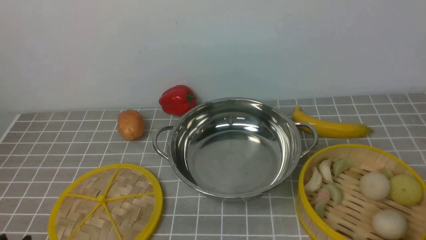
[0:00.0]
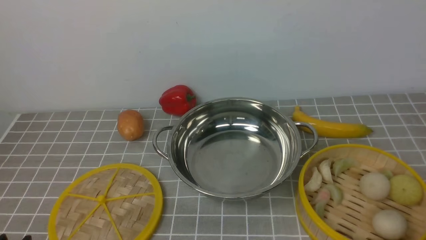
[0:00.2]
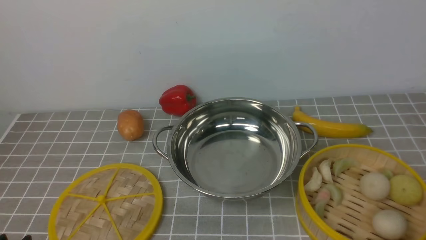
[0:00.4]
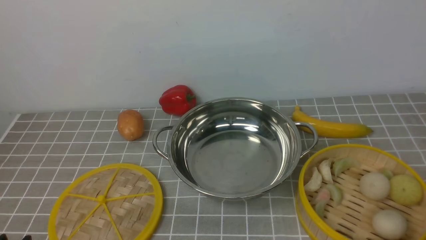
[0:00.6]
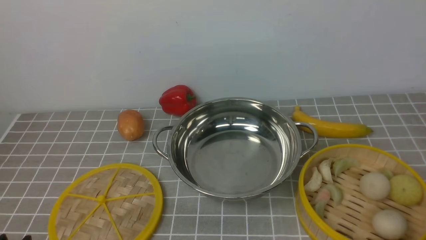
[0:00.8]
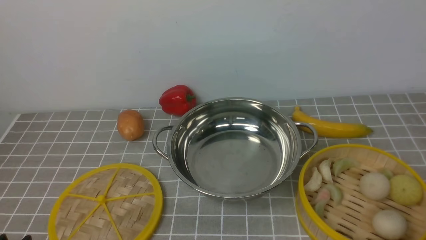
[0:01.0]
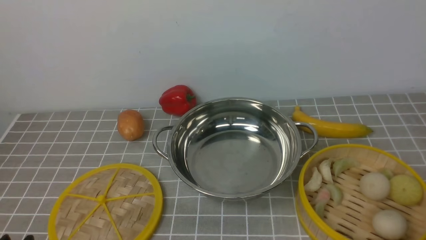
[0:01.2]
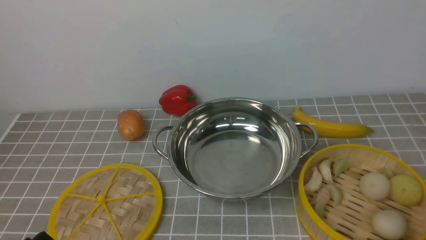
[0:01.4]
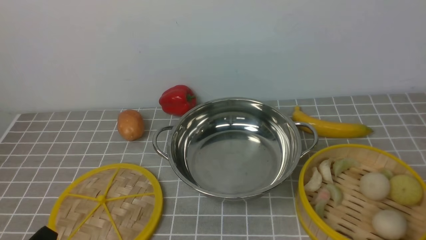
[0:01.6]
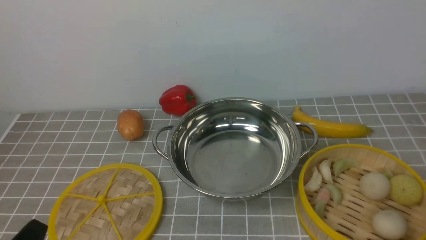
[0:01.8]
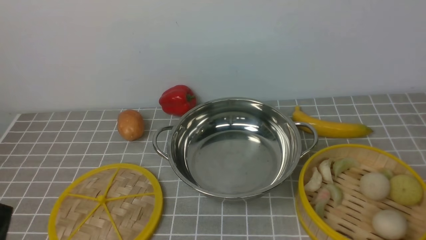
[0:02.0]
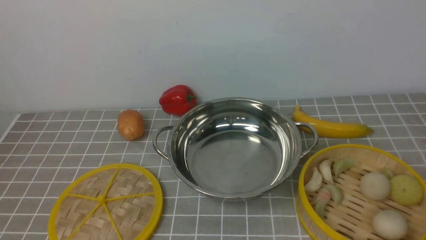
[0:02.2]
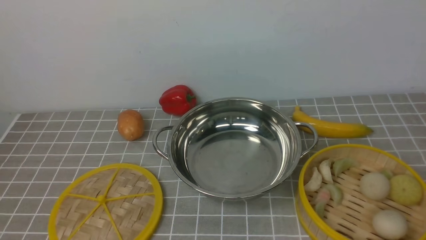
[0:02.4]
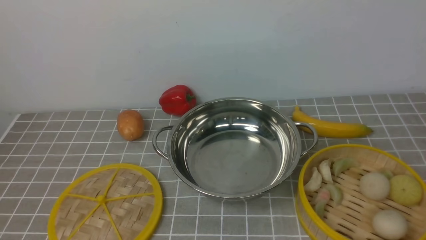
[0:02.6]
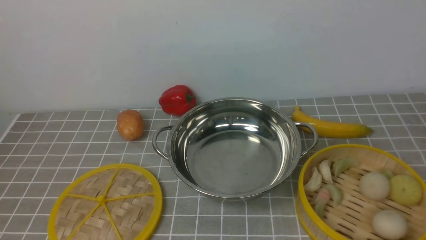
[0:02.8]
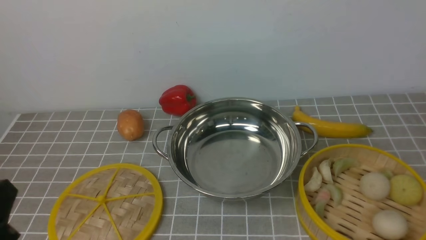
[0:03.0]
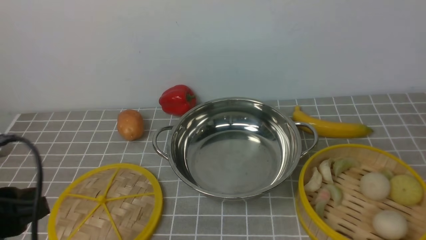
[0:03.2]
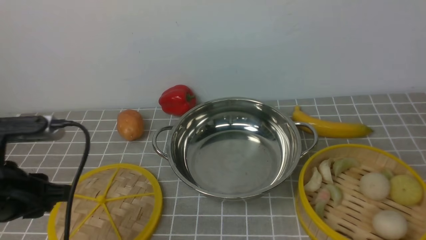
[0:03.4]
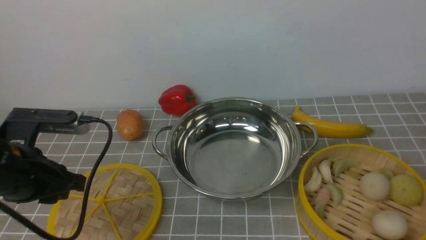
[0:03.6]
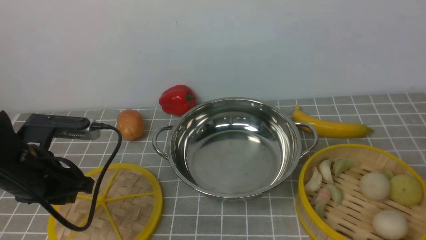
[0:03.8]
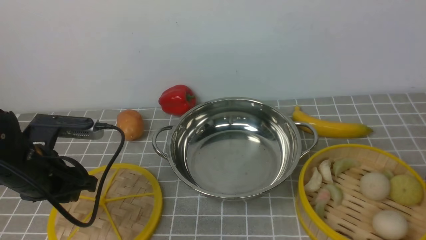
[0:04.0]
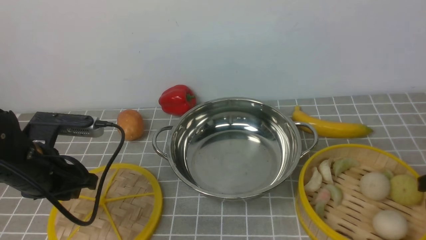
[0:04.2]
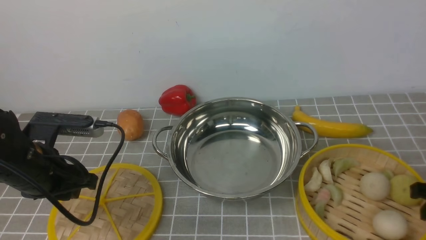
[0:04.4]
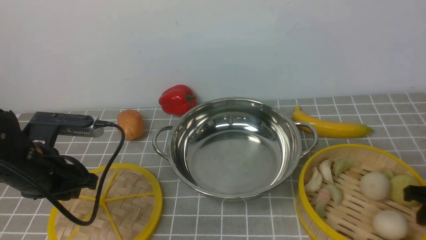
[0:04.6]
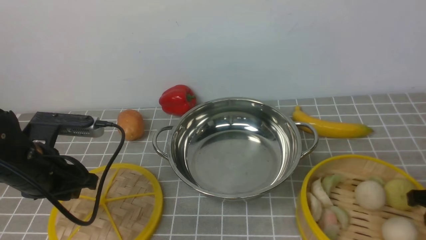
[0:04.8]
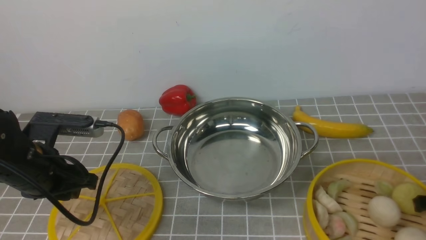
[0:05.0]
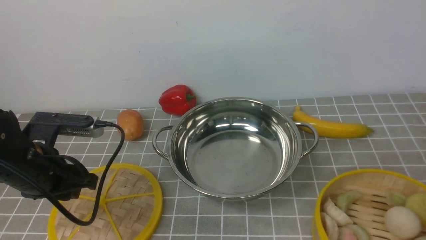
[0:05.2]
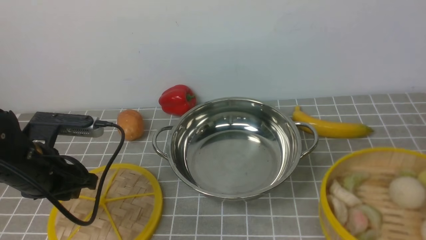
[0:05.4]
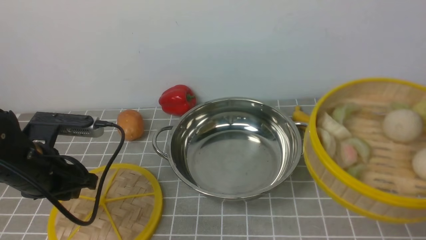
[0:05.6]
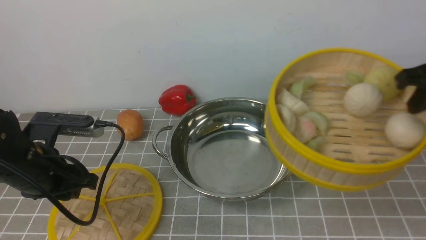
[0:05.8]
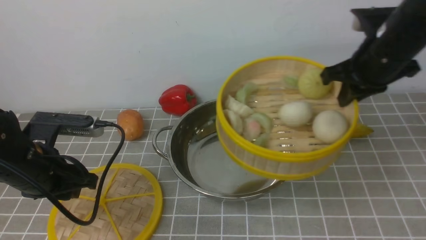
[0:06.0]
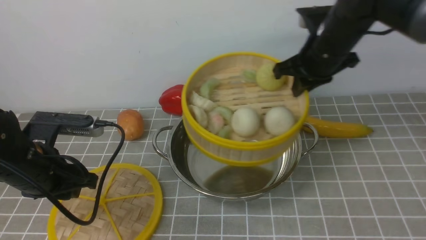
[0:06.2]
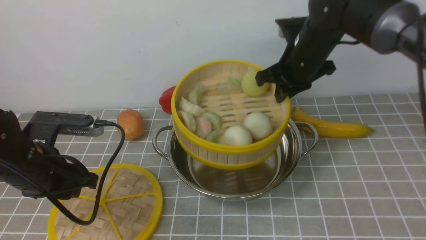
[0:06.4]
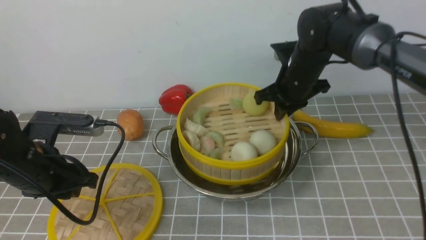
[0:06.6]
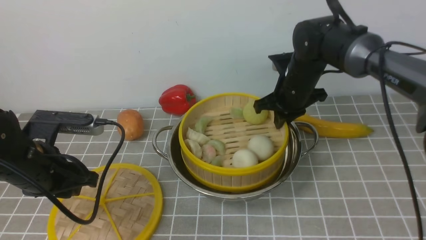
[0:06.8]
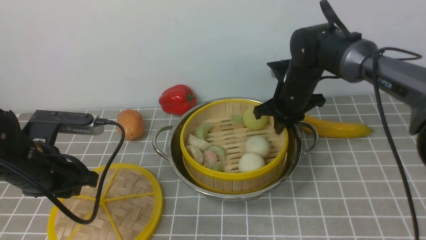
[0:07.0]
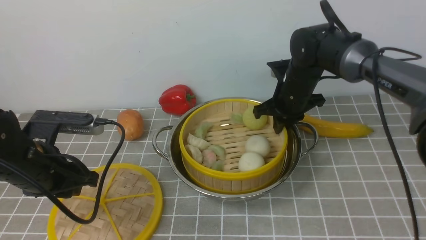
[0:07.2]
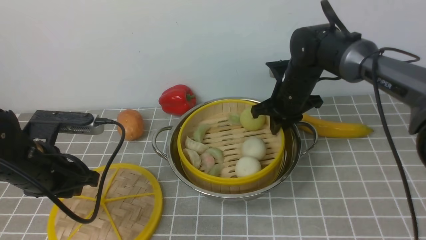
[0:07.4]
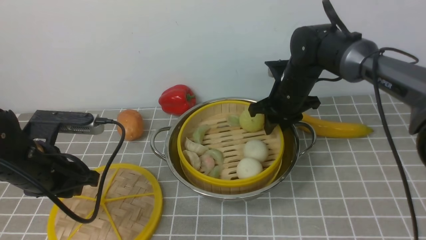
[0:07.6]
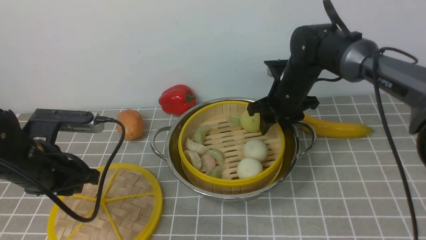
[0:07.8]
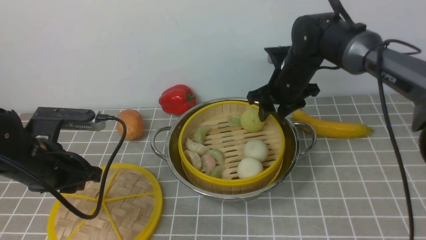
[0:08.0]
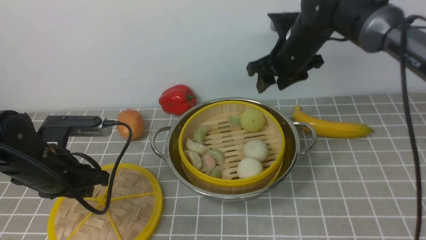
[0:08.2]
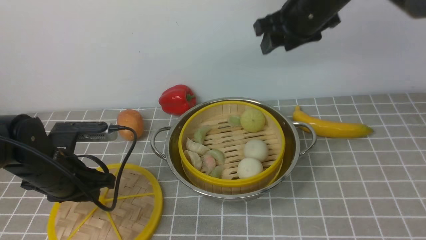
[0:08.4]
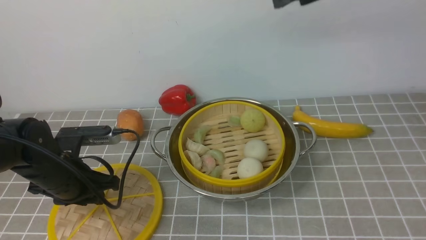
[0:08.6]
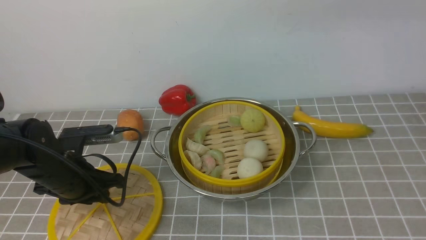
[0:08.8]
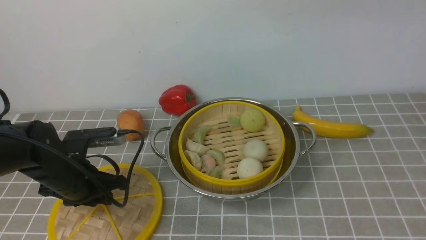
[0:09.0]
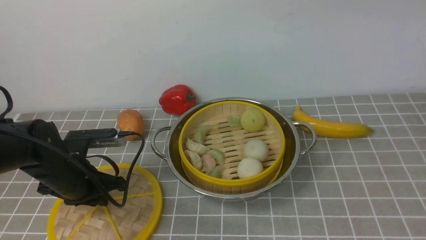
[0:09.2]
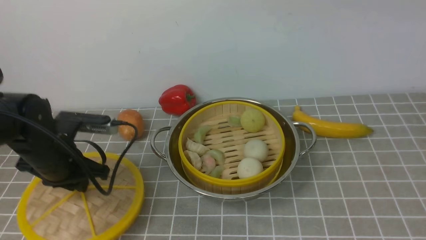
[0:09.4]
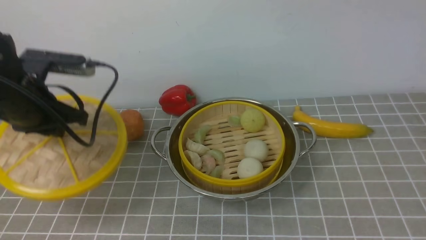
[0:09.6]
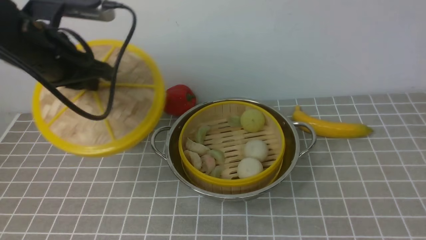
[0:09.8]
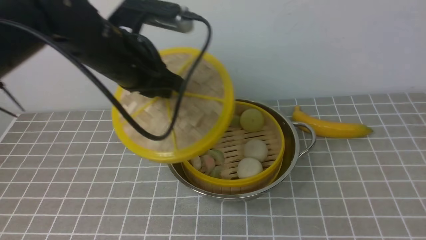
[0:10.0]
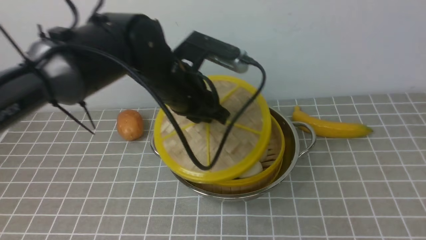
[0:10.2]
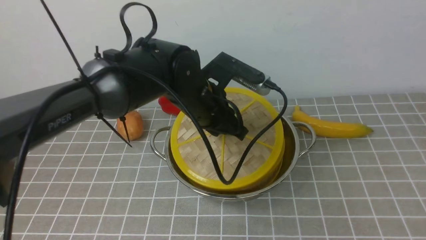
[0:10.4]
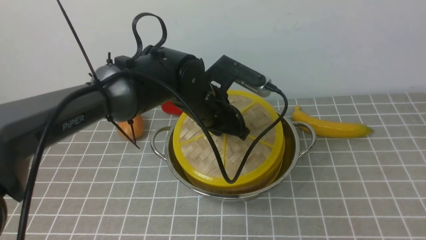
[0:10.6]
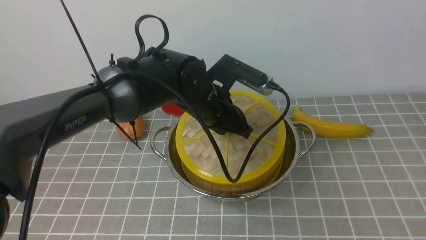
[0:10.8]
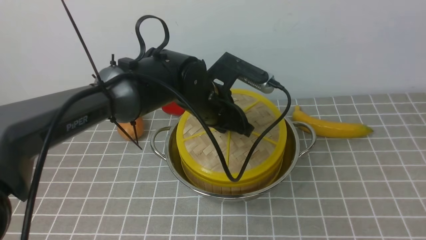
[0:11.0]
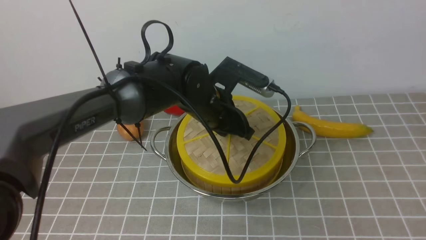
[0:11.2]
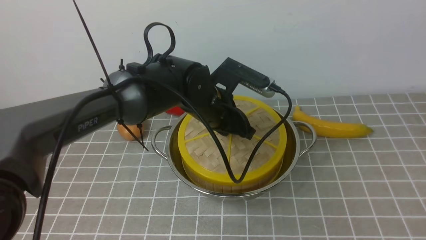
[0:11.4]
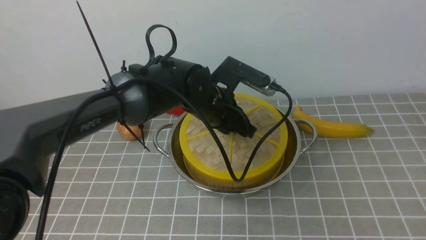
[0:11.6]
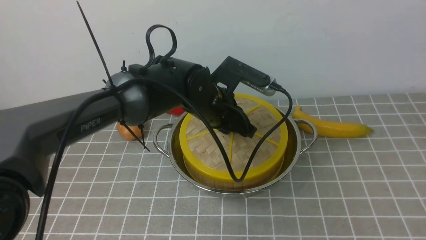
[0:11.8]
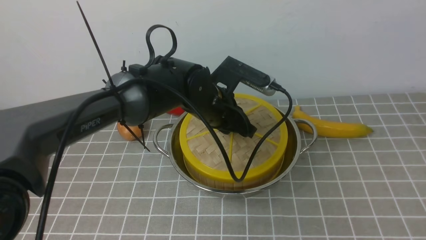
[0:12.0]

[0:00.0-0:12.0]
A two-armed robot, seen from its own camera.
Task of the whole recording: place the steamer in the pot on the grey tablecloth, and put the lid on the steamer.
Step, 0:00.0 to 0:05.2: use the right arm to lift the steamer closest to it.
Step, 0:05.4 to 0:08.0: use the right arm to put the steamer into the iron steamer pot in the middle.
Step, 0:08.2 to 0:09.2: use the left arm to lift the lid of the steamer.
0:01.6 to 0:03.0: The left gripper travels upward by roughly 10 cm.
0:03.0 to 0:04.4: The left gripper is displaced forward by about 15 cm.
0:04.4 to 0:06.0: The right gripper is displaced forward, upward and to the left by approximately 25 cm, and closes its fingers.
0:06.0 to 0:07.6: The right gripper travels downward, to the left and forward by approximately 15 cm, and opens.
0:07.6 to 0:09.0: The right gripper is displaced upward and backward by some 35 cm, and opens up. Meanwhile the left gripper shifts some 5 cm downward.
0:09.0 to 0:10.4: The right gripper heads backward and to the right, covering about 20 cm. Meanwhile the left gripper shifts some 20 cm to the right and upward.
0:10.4 to 0:12.0: The grippers move only a little.

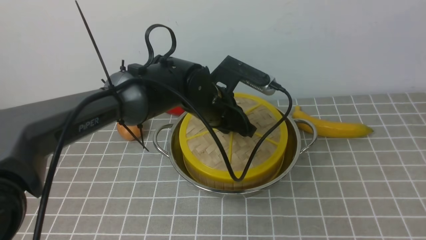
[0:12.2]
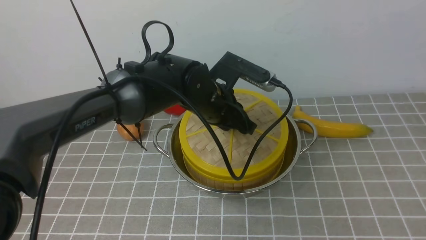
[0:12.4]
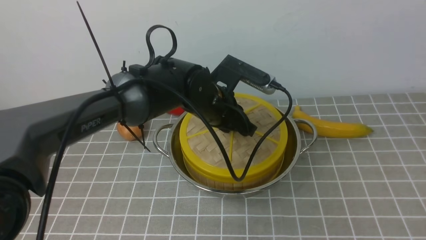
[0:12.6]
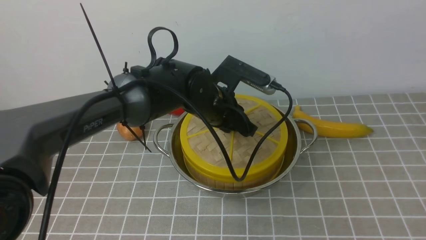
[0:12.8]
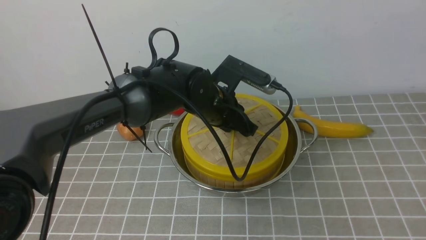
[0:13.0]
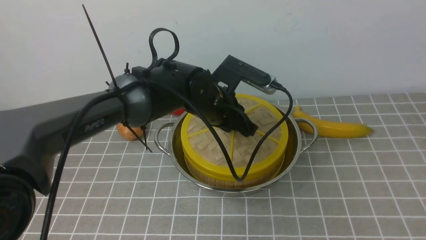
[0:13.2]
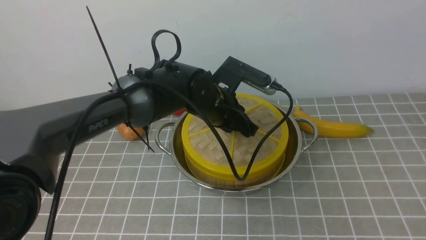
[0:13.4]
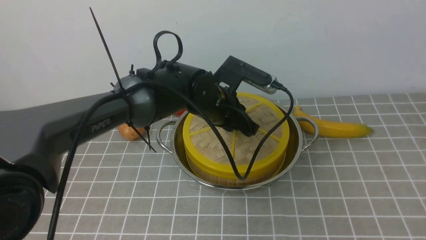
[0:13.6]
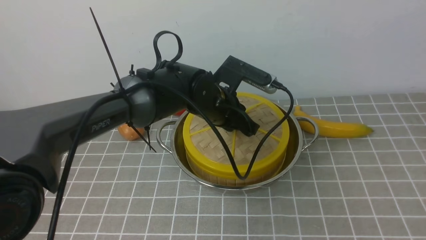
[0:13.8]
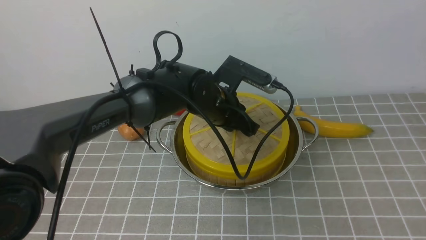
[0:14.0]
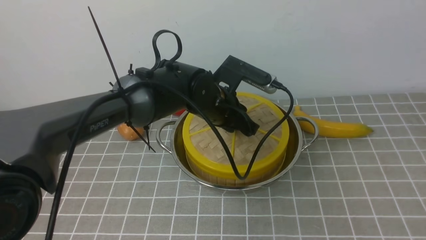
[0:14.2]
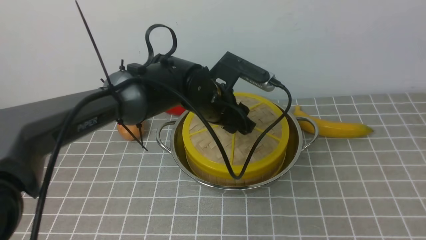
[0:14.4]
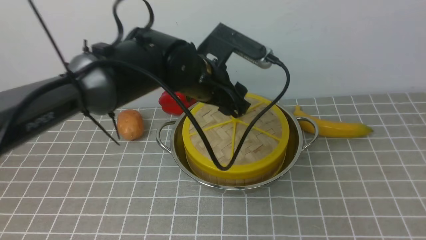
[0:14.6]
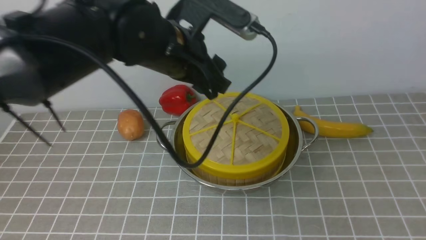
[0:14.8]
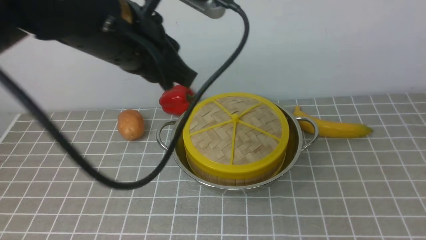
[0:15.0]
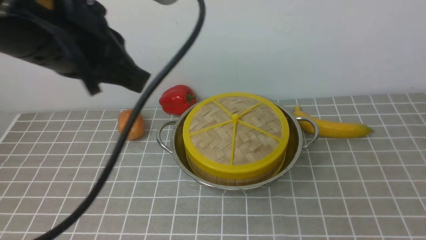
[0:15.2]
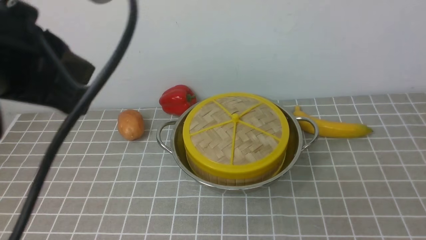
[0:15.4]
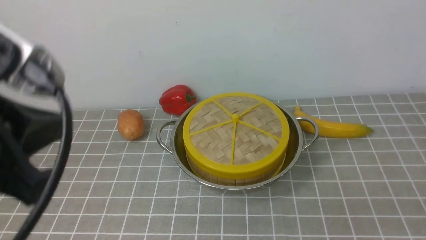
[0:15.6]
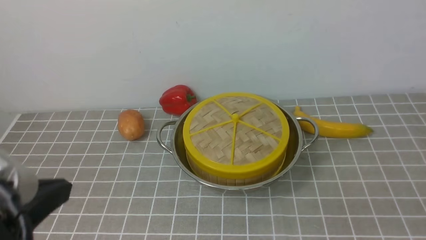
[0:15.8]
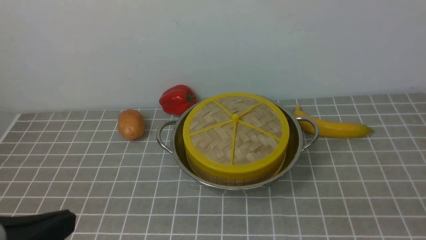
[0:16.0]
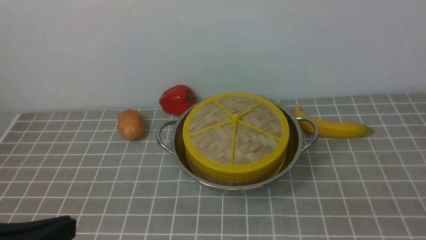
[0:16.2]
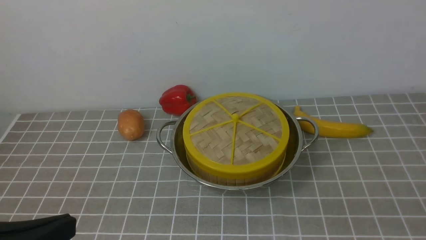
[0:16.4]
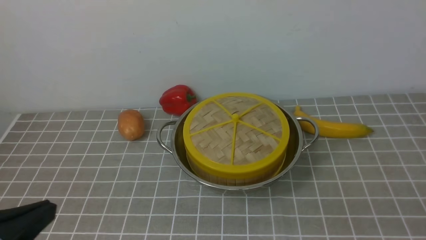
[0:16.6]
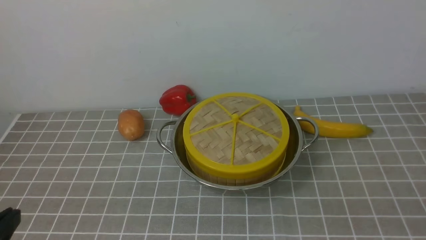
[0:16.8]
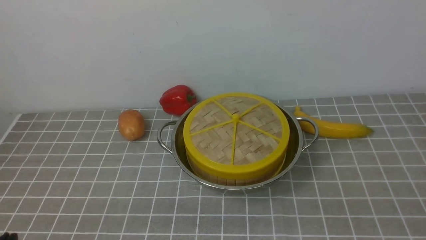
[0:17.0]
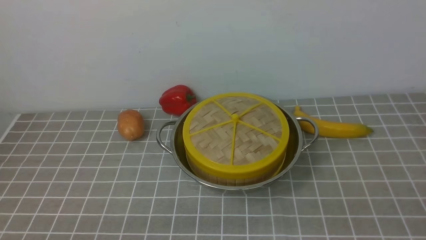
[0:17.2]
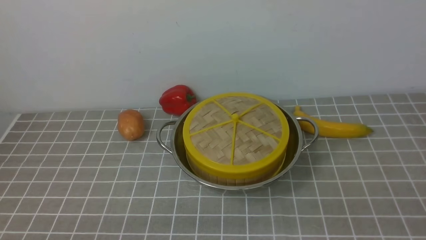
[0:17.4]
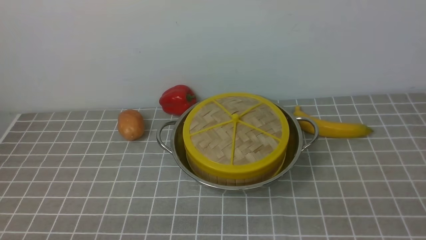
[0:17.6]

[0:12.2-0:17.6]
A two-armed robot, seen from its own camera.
Task of the whole recording: place the steamer in the pot on the grey tablecloth, and put the lid on the steamer.
Step, 0:12.2 to 0:14.4: use the left arm to place the steamer lid on the steamer.
0:12.2 to 0:13.6: The grippers stay close to where they were, moving slightly.
0:13.6 to 0:15.0: The left gripper shifts approximately 25 cm upward, backward and to the left, and opens and closes again; the right gripper goes about 10 cm downward, and closes up.
0:15.0 to 0:16.2: The right gripper goes about 20 cm downward, and closes. The left gripper moves backward and to the left, some 25 cm, and closes.
0:16.2 to 0:17.6: The left gripper is displaced downward by roughly 15 cm.
